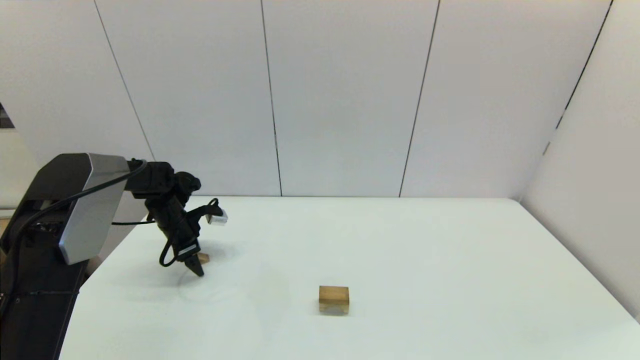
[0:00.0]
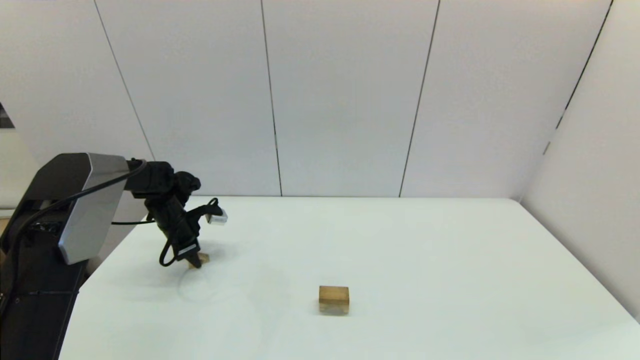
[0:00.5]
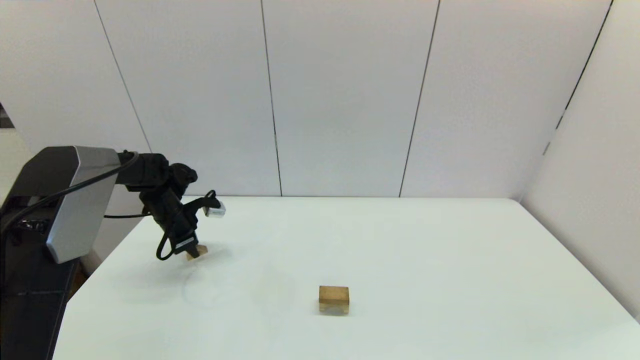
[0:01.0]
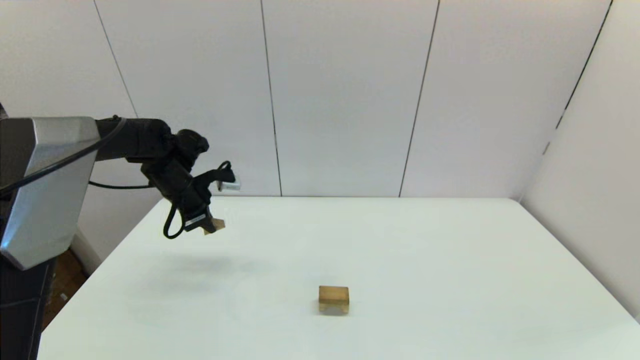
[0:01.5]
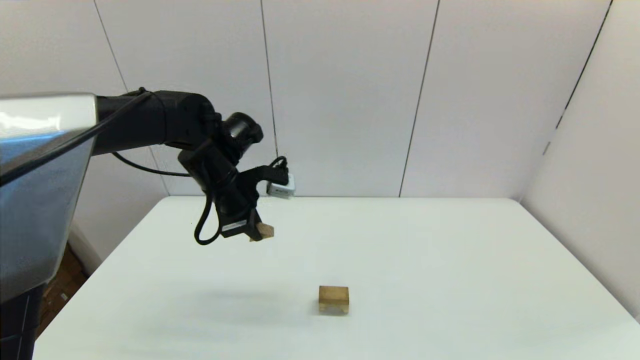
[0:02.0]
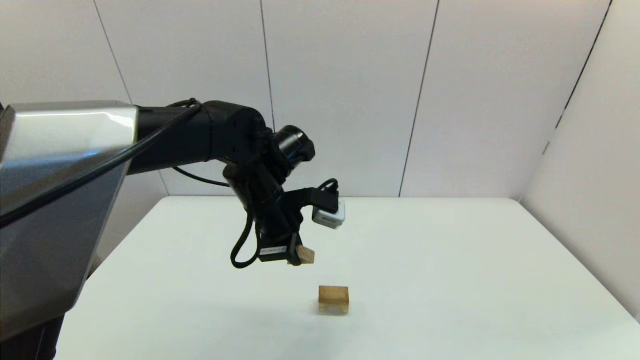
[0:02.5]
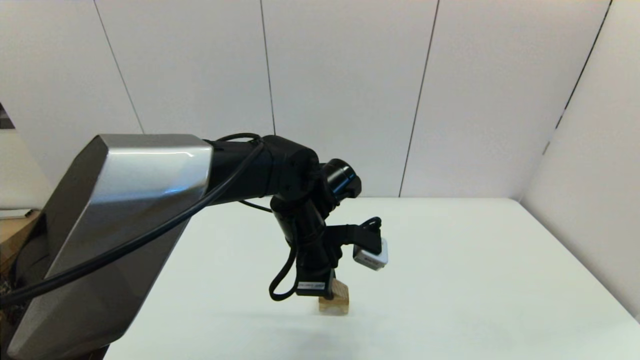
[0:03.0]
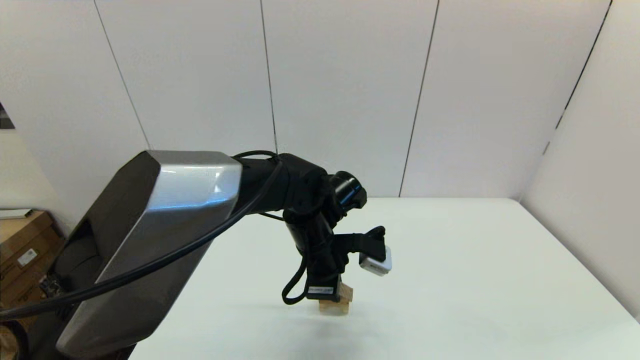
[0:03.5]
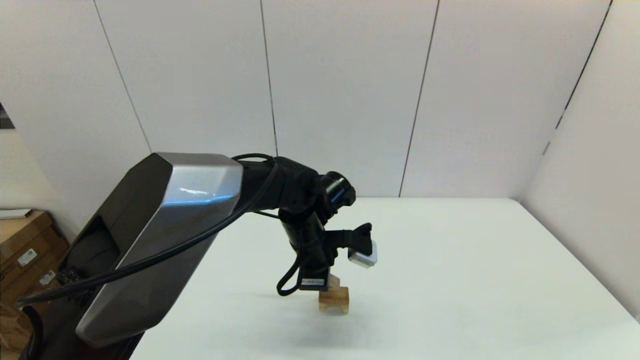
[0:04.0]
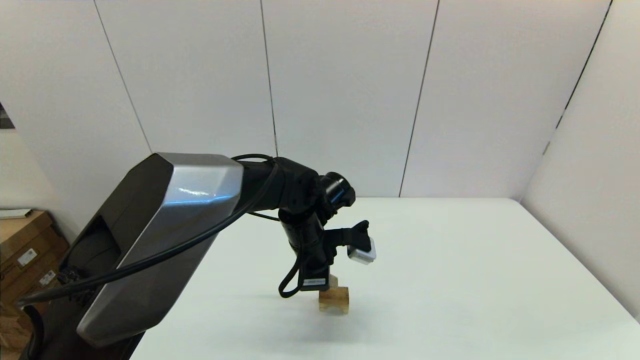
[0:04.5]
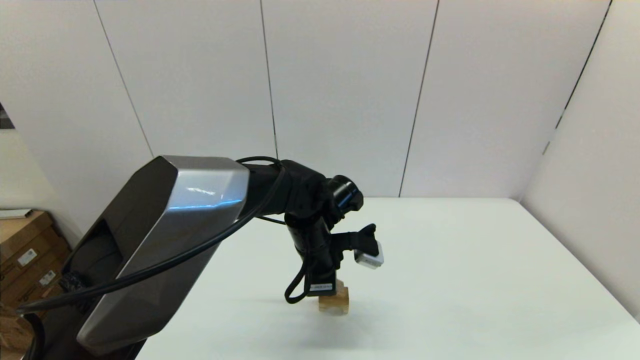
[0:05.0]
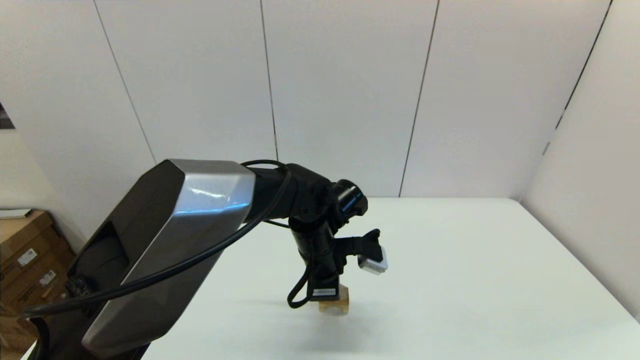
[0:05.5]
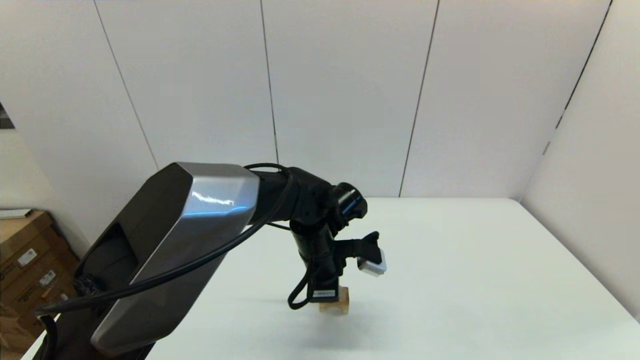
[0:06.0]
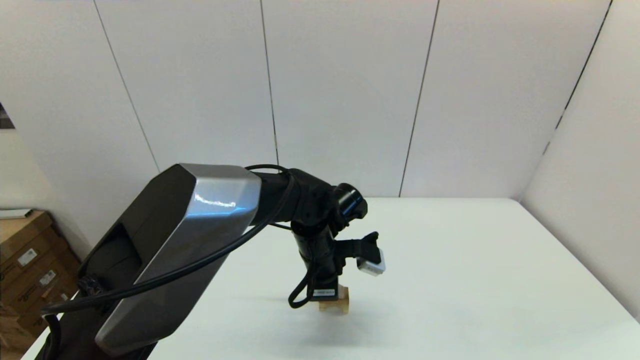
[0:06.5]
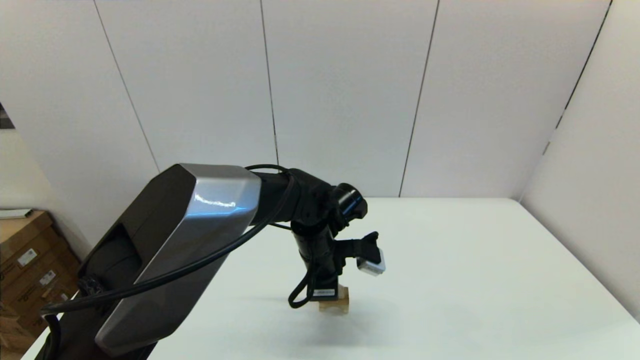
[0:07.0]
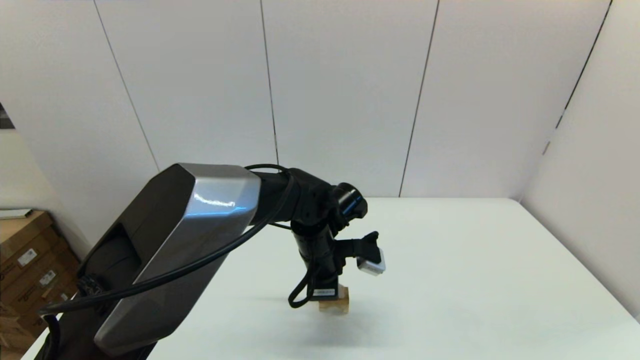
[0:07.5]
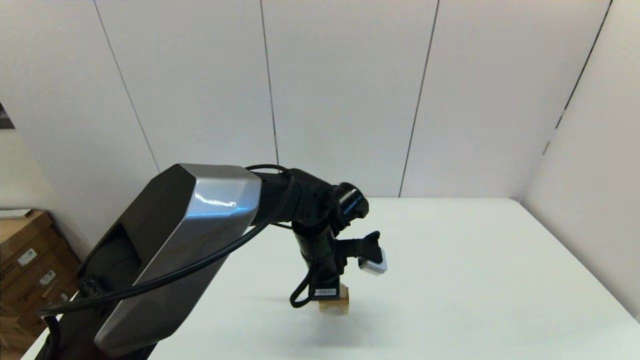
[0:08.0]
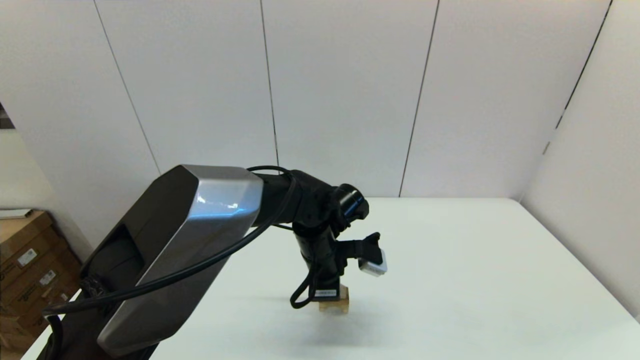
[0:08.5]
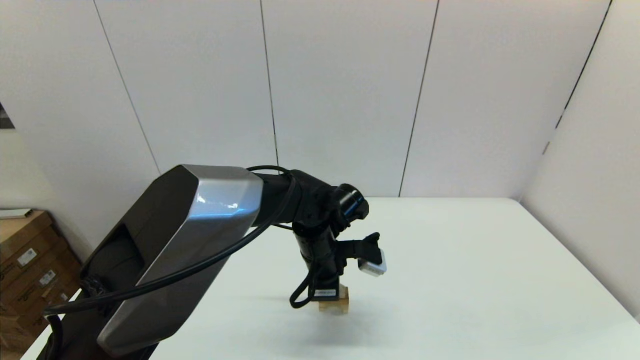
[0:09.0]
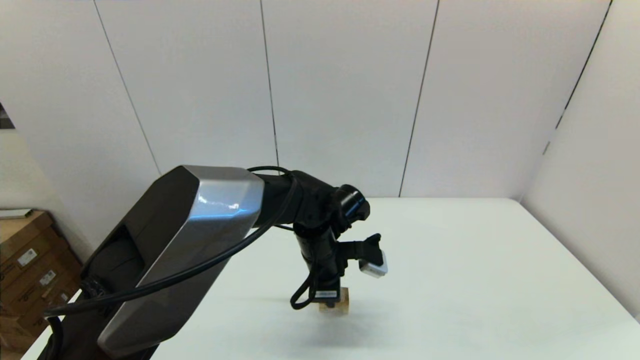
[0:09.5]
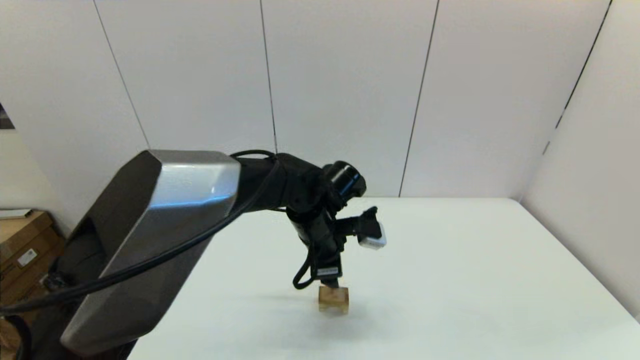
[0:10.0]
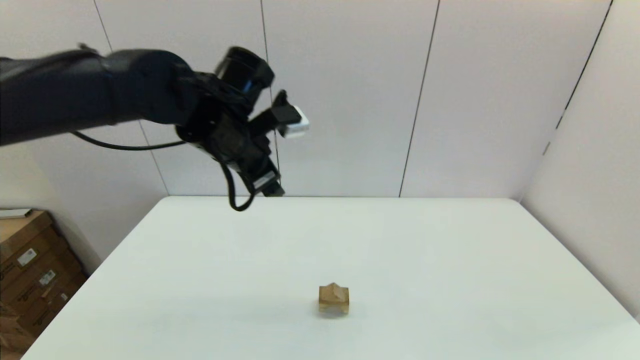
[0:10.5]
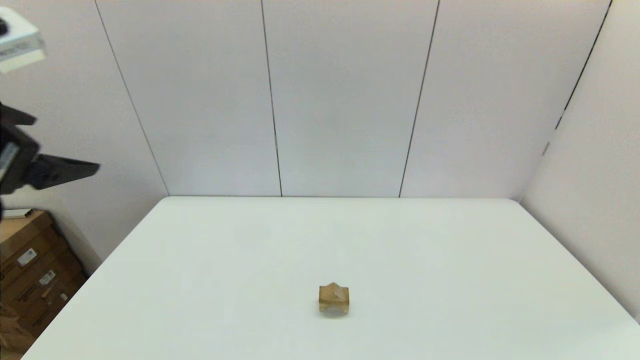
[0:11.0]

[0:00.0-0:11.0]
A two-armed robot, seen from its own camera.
Task of the whole recording: place the arched building blocks in the center of the table, set up the rectangular building blocks, and then set up the triangular building blocks.
0:00.0 to 0:02.0: The left gripper is displaced to the right, upward and backward by roughly 25 cm, and closes.
0:02.0 to 0:03.5: The left gripper travels to the right and downward by approximately 15 cm.
0:03.5 to 0:05.5: The grippers make only small movements.
0:05.5 to 0:09.0: The two grippers keep their place.
0:09.0 to 0:11.0: The left gripper moves to the left, upward and backward, roughly 40 cm, and opens up.
